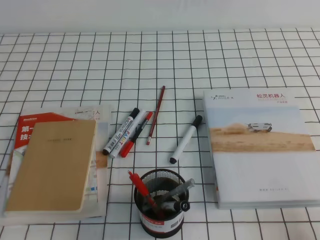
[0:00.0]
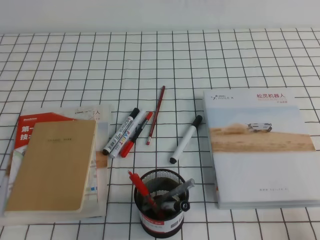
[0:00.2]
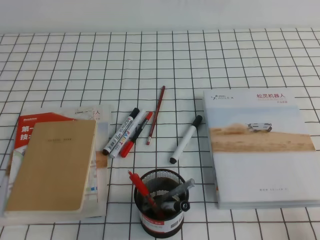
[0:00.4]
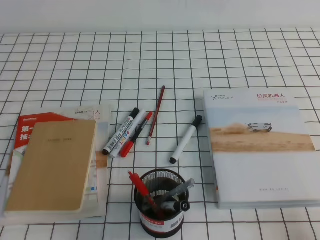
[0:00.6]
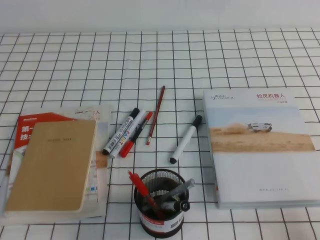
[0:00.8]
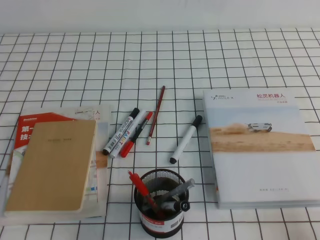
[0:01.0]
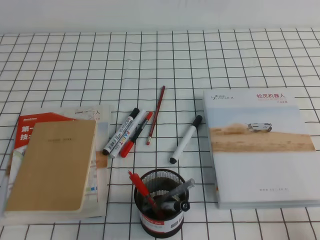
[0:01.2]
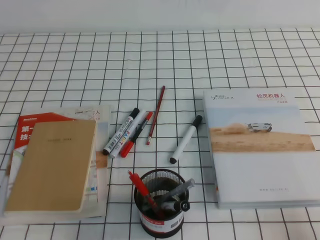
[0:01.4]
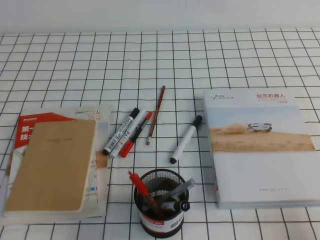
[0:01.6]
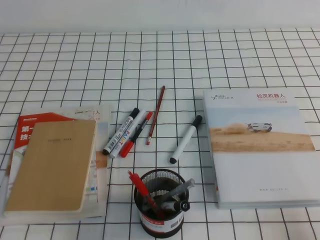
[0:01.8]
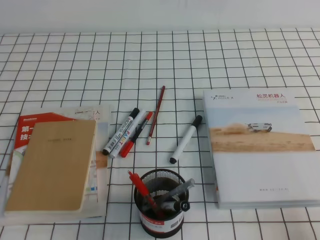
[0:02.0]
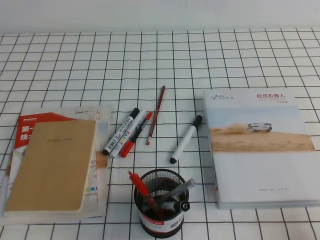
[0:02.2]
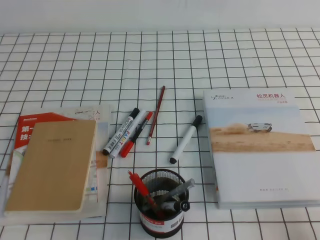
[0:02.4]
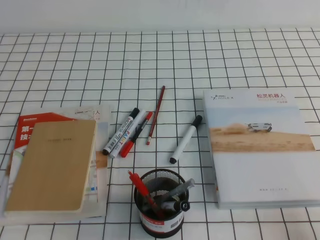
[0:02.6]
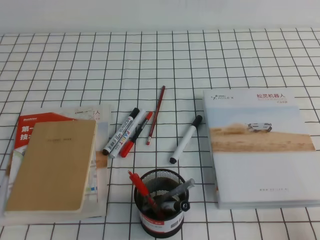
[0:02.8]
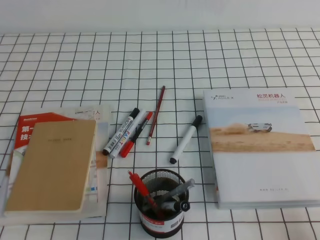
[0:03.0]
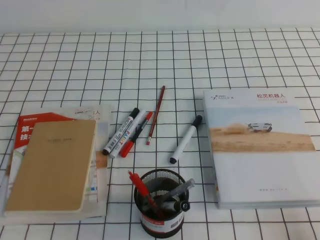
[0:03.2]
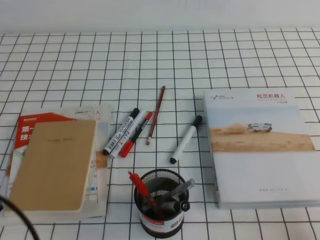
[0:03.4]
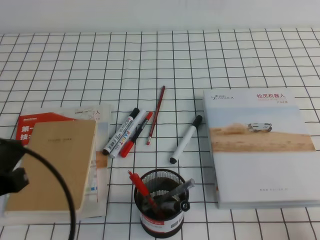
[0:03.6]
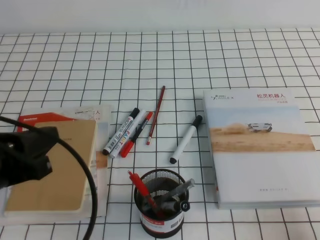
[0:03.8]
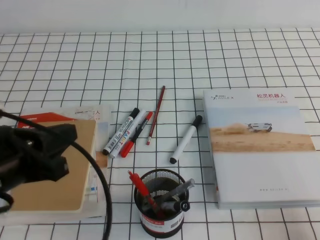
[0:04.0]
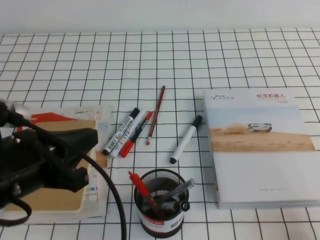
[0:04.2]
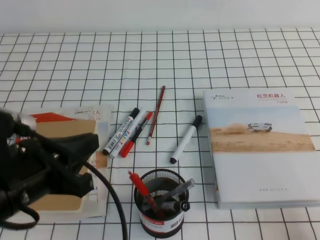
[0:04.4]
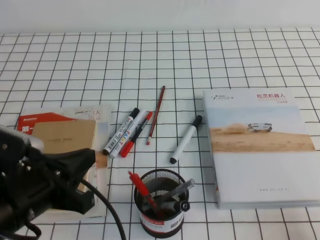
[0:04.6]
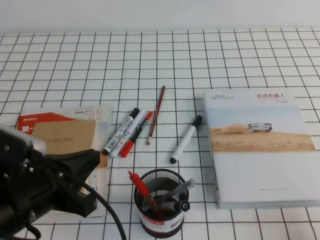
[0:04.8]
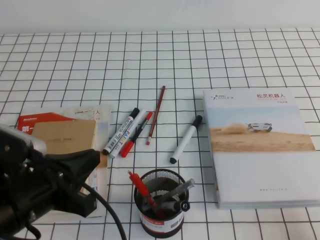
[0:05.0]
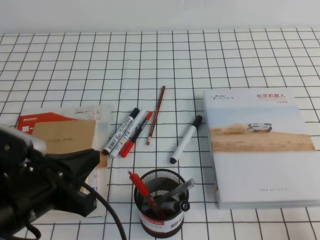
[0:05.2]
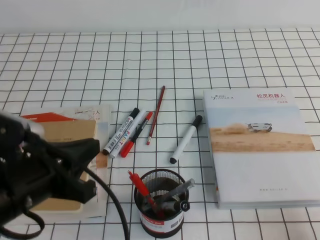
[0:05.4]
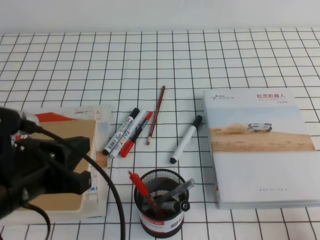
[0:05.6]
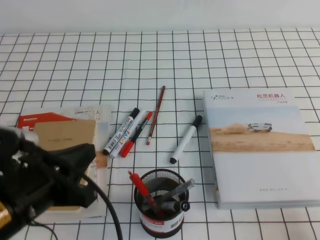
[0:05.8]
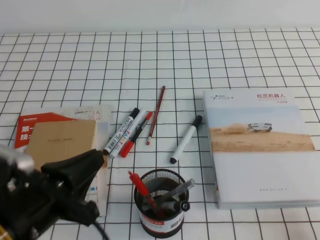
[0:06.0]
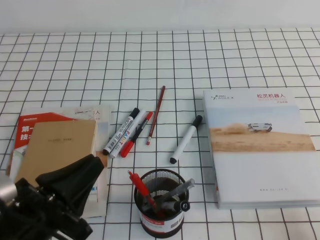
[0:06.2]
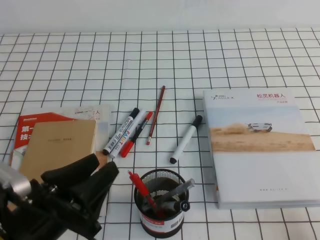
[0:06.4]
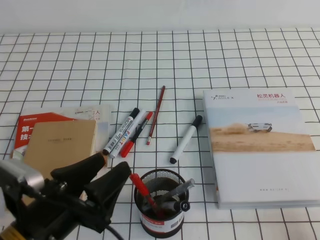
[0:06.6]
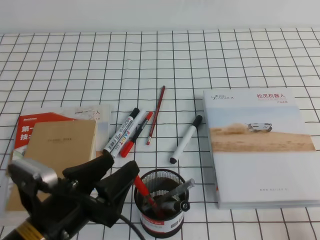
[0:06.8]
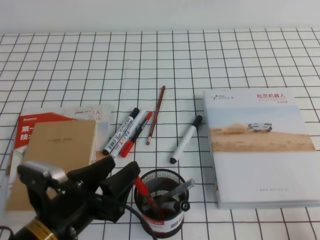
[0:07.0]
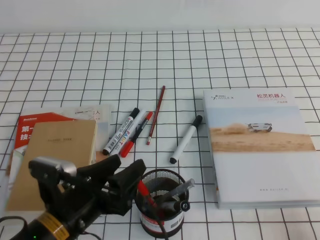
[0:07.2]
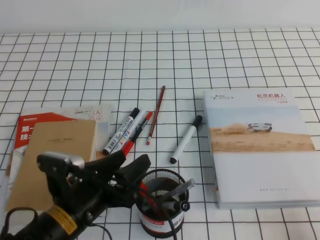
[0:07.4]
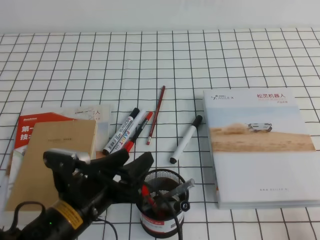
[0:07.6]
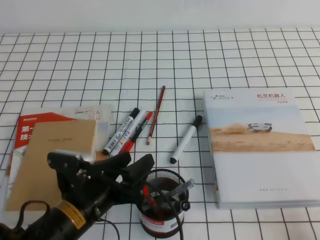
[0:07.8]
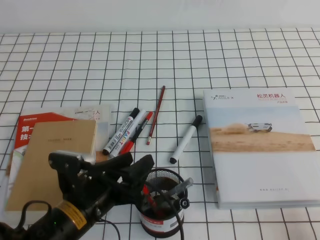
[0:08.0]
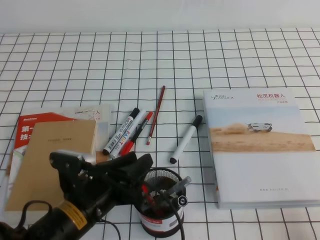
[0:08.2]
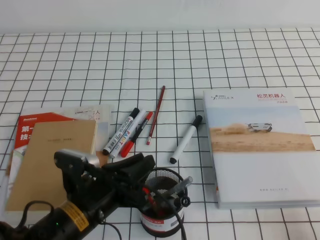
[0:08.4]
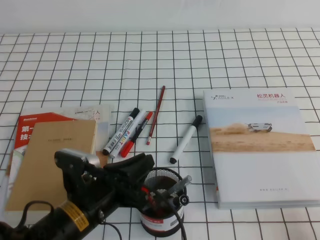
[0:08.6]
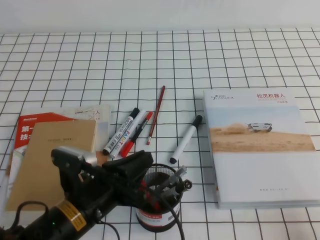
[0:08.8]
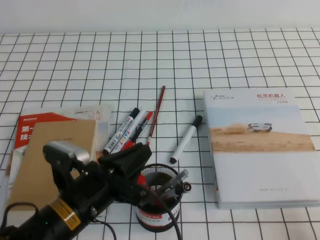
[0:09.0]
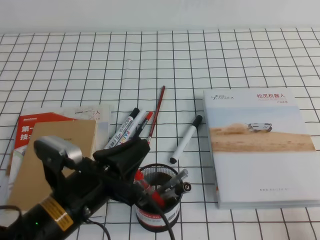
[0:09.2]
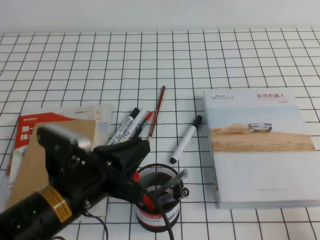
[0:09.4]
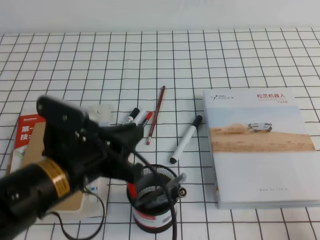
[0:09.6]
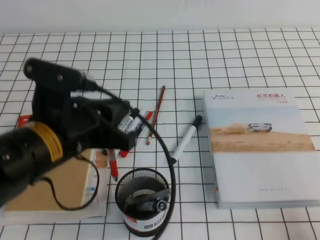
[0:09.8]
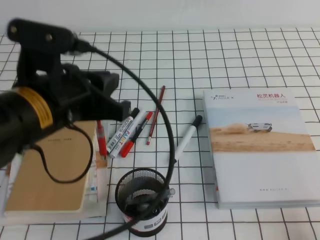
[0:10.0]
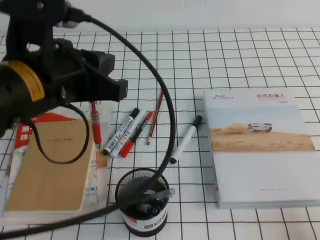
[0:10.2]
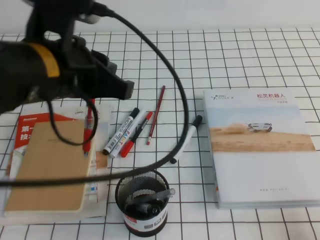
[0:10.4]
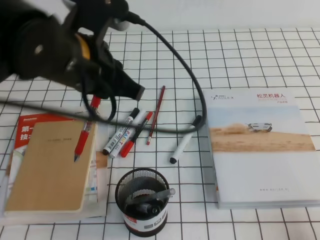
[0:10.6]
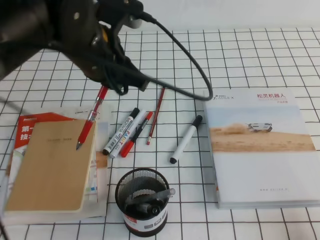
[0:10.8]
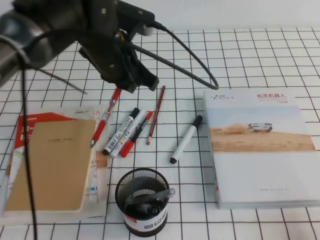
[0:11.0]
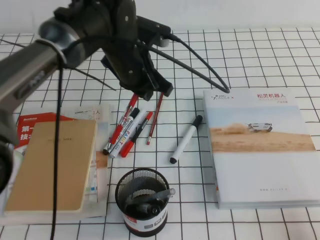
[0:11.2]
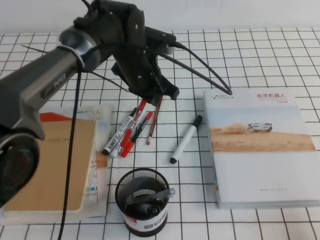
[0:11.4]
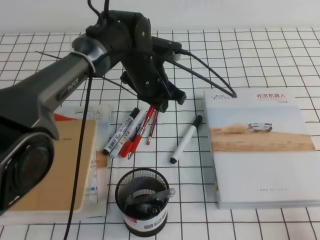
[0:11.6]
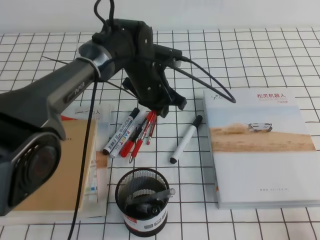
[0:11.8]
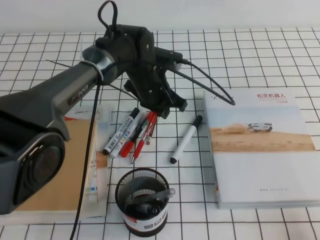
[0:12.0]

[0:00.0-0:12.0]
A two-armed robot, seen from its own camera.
0:03.0 to 0:04.4: The left gripper heads forward, to the right and upward, covering some 15 cm.
0:04.4 to 0:06.0: The grippers move only a little.
0:06.0 to 0:07.6: The left gripper goes some 10 cm downward, and opens its fingers.
0:07.6 to 0:09.0: The left gripper closes.
0:09.0 to 0:10.4: The left gripper goes about 20 cm upward.
0:10.4 to 0:12.0: The left gripper heads forward, downward and to the right, covering about 30 cm.

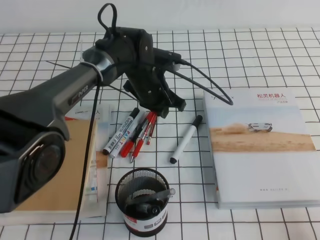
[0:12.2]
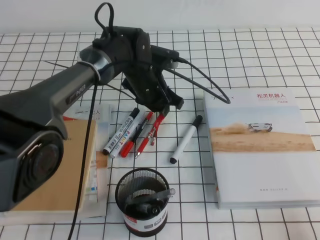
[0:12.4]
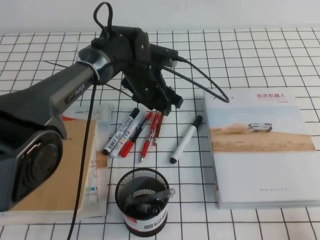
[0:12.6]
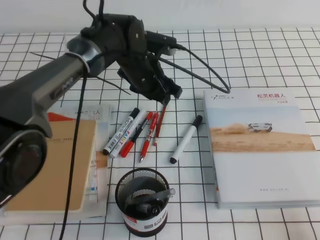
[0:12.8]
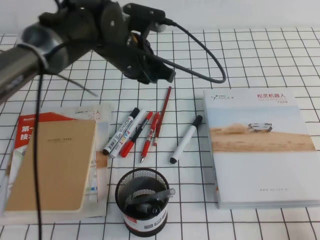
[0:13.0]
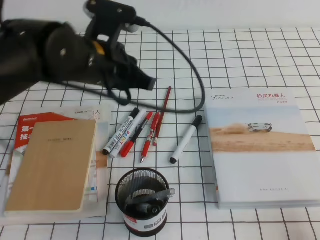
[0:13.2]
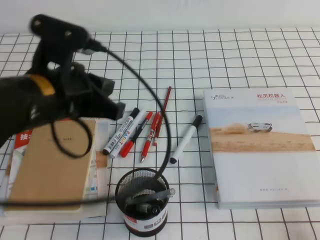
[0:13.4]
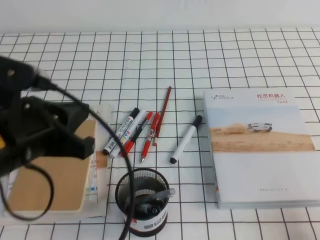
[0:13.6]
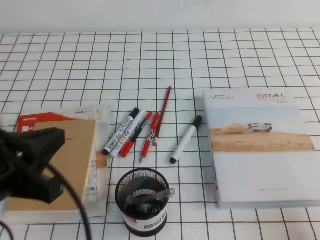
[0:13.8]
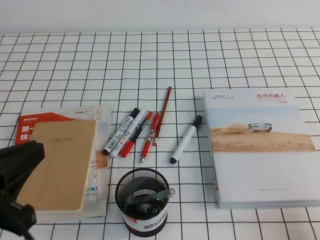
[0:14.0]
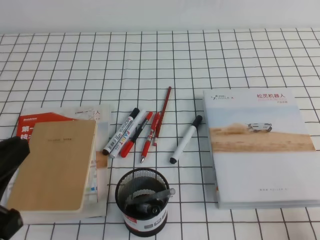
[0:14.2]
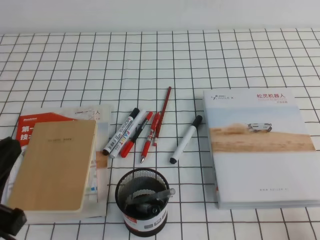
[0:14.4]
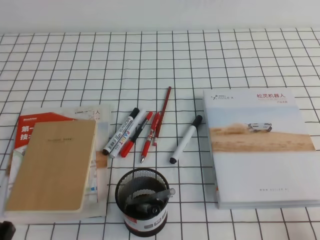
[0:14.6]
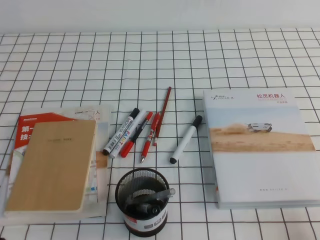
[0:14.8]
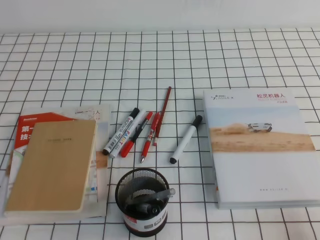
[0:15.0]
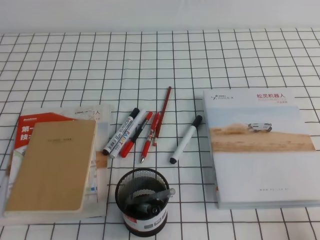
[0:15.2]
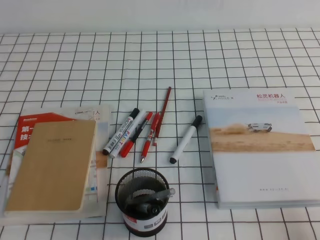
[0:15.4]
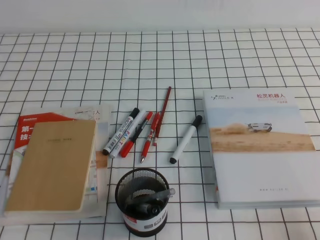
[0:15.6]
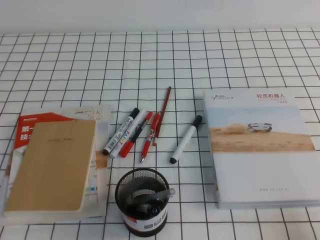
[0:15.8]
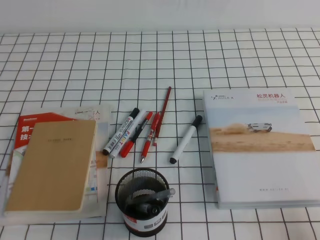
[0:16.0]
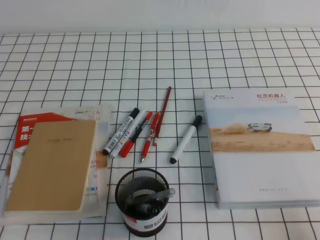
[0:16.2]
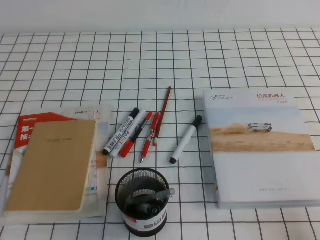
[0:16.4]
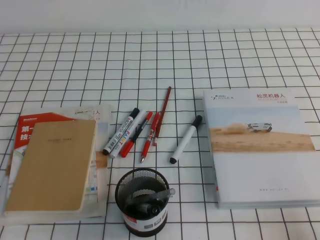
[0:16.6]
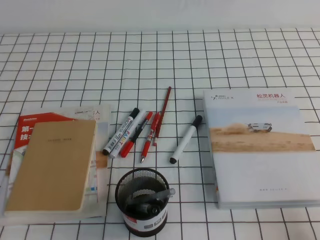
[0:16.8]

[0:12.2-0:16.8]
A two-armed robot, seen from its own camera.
Step, 0:12.2 to 0:16.8: Pick up the pen from the pen holder.
0:12.2 to 0:13.8: The left gripper moves backward, to the left and upward, approximately 35 cm, and opens, then closes again.
0:13.8 to 0:15.2: The left gripper travels downward, backward and to the left by some 20 cm.

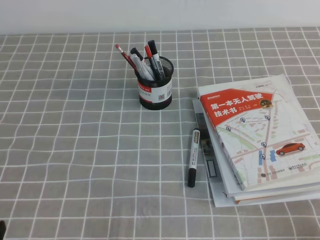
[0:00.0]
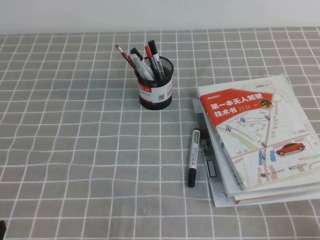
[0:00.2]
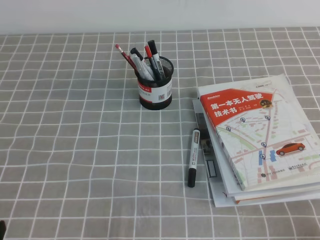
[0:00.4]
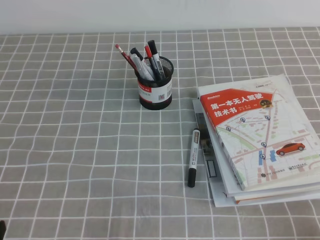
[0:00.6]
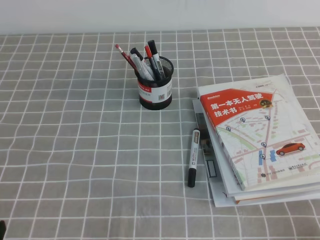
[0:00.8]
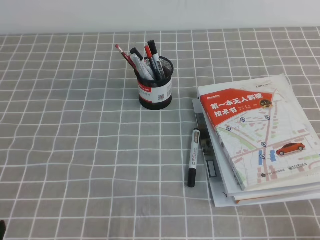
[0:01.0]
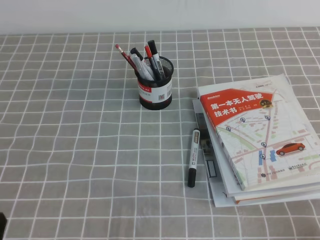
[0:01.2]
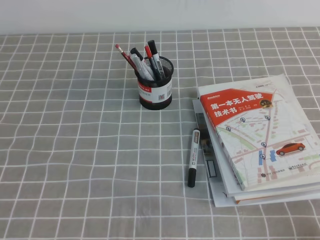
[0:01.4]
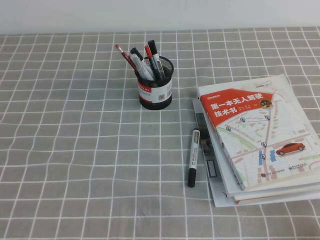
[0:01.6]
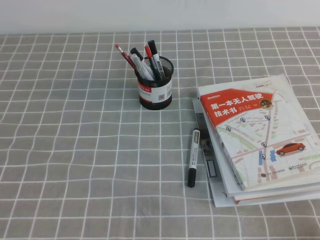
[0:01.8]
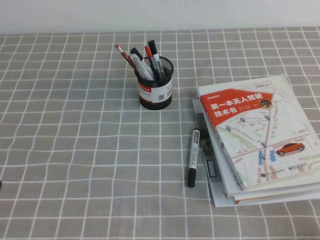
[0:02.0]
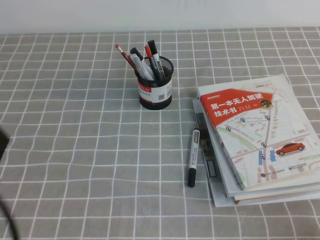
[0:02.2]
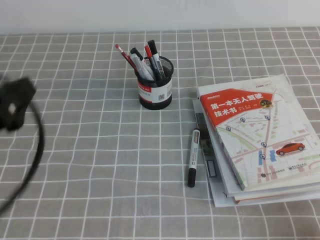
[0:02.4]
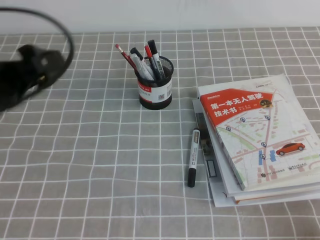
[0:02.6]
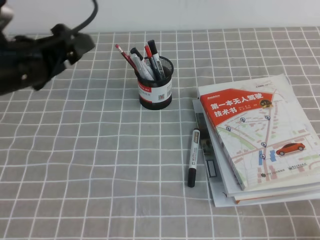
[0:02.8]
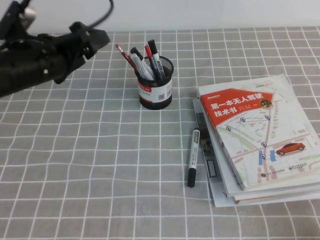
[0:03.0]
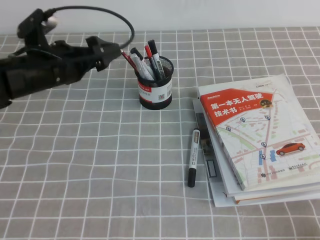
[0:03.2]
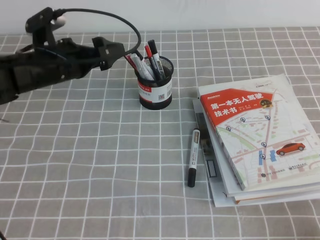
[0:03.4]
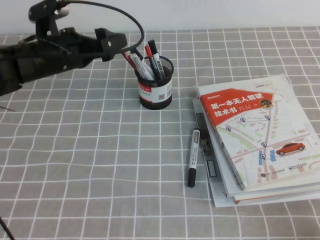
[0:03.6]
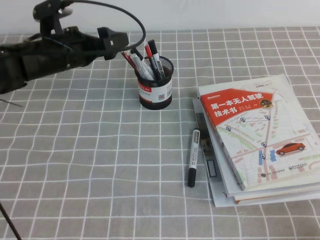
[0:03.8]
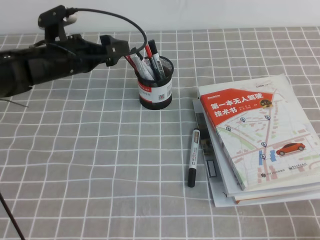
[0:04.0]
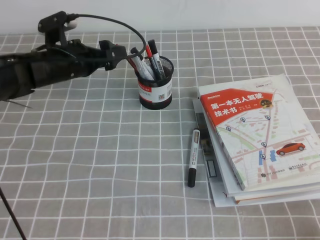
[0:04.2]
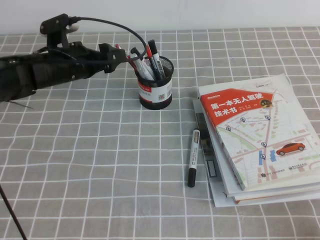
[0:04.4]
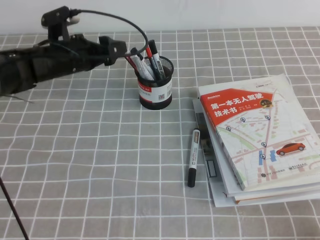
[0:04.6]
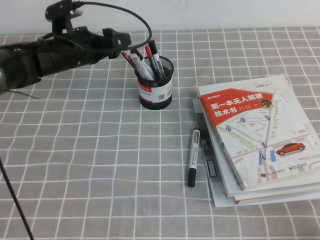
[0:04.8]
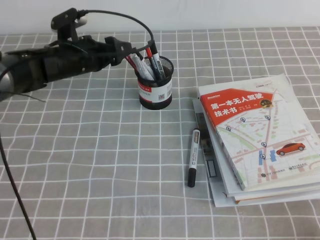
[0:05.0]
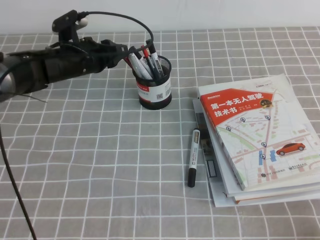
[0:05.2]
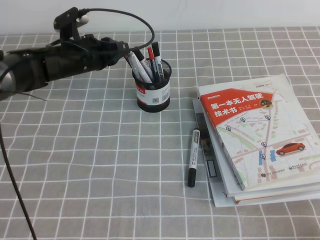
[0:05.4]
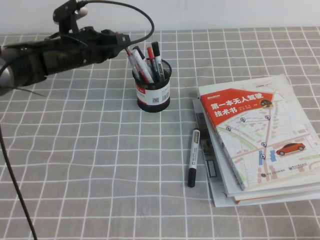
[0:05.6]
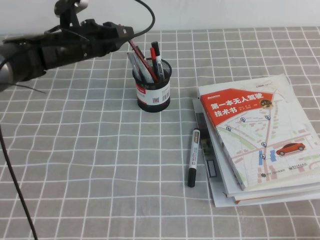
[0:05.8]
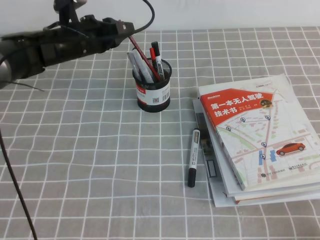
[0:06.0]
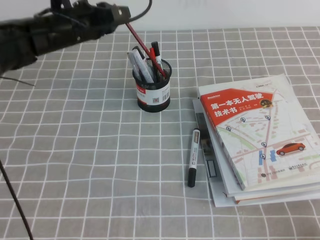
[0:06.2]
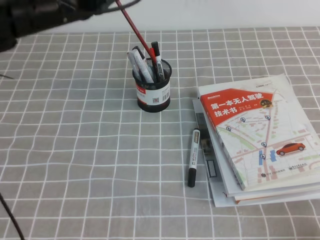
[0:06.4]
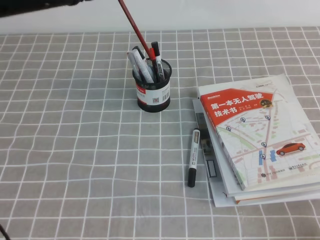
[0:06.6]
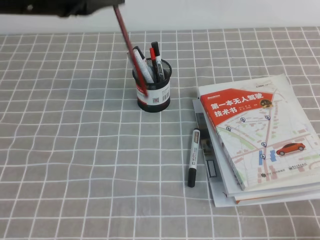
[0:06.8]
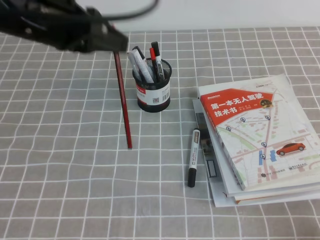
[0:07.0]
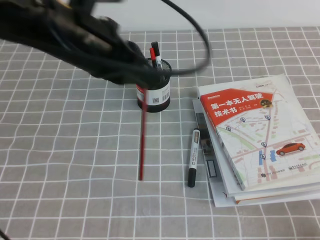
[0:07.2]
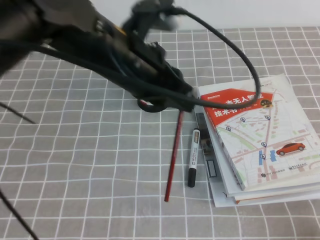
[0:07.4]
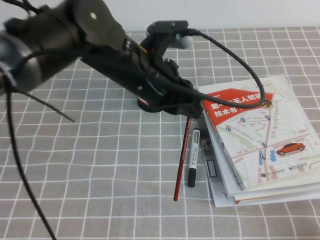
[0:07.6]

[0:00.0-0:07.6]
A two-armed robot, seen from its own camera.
0:01.6 to 0:03.0: The left gripper heads forward, covering some 30 cm, and opens up.
0:03.0 to 0:04.6: The left gripper heads forward and downward, covering some 10 cm.
0:04.6 to 0:06.0: The left gripper closes up.
0:06.0 to 0:07.6: The left gripper travels backward and to the right by roughly 20 cm.
